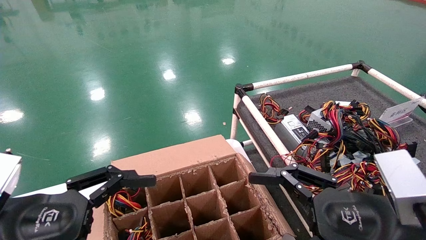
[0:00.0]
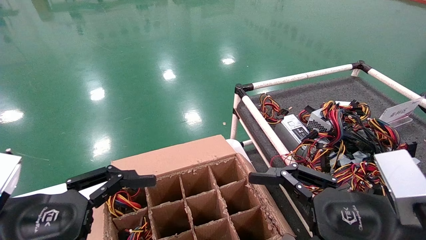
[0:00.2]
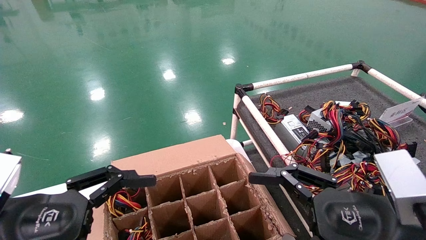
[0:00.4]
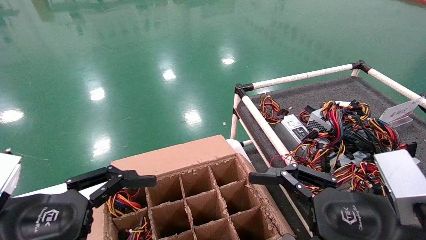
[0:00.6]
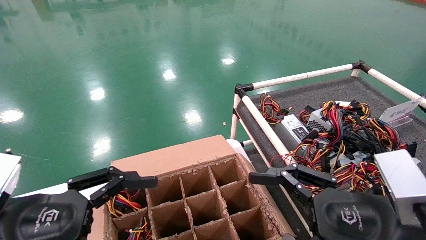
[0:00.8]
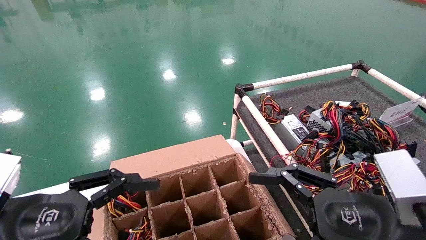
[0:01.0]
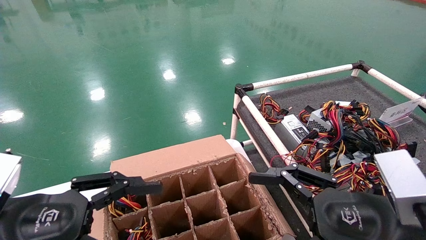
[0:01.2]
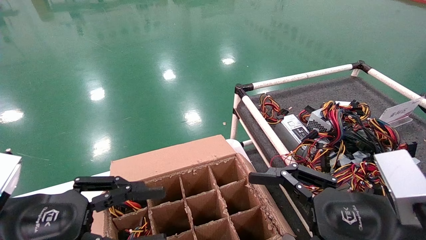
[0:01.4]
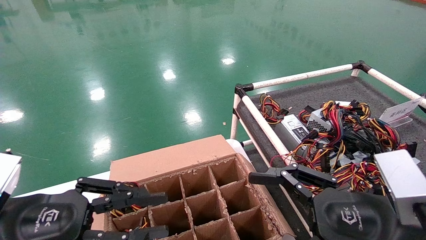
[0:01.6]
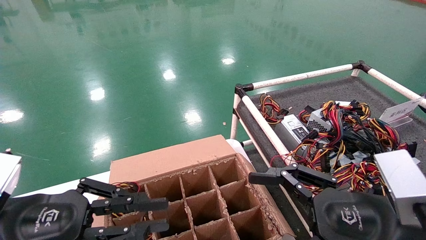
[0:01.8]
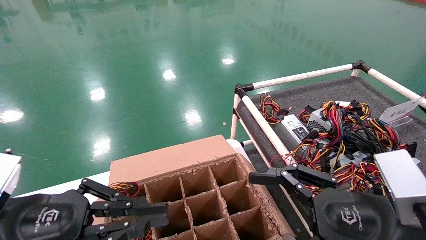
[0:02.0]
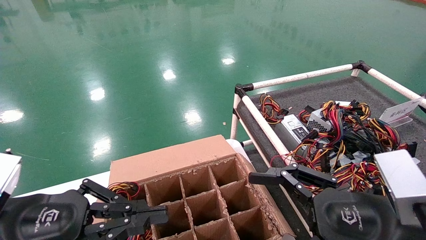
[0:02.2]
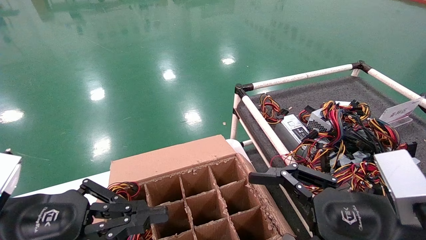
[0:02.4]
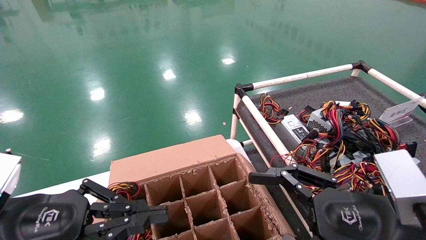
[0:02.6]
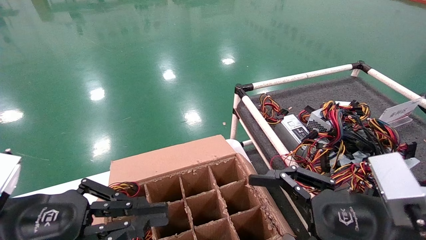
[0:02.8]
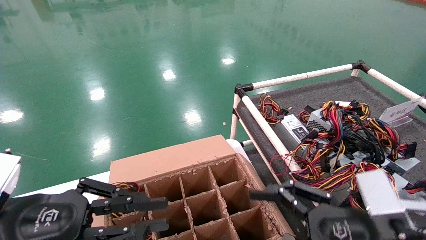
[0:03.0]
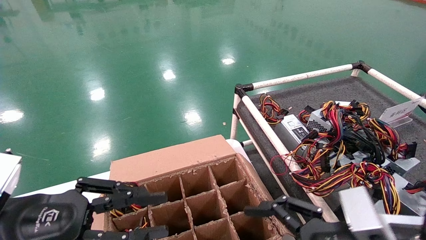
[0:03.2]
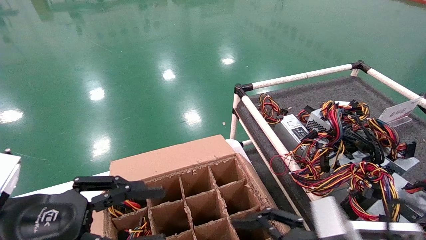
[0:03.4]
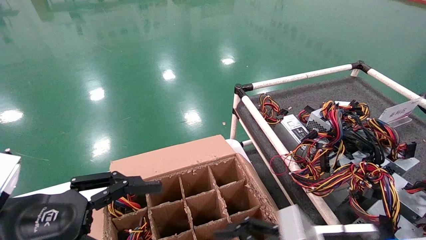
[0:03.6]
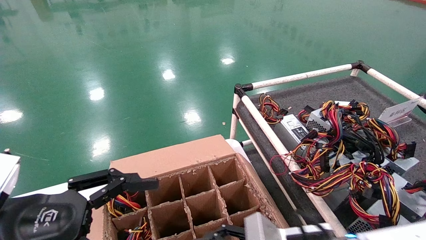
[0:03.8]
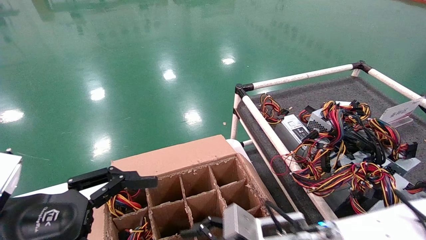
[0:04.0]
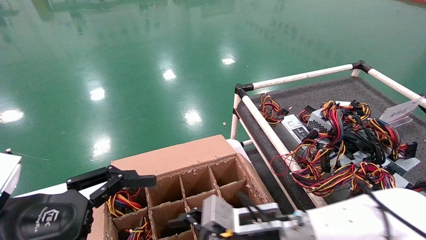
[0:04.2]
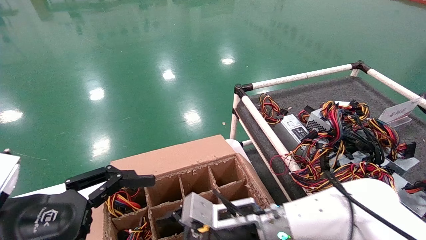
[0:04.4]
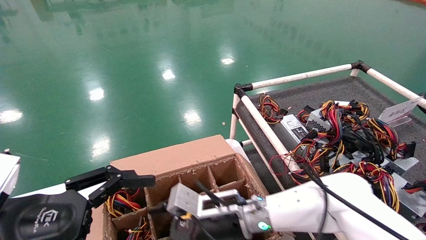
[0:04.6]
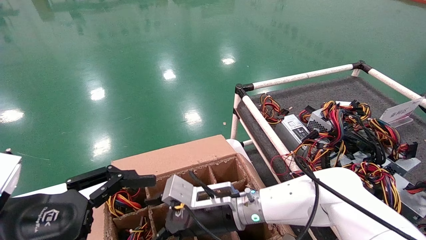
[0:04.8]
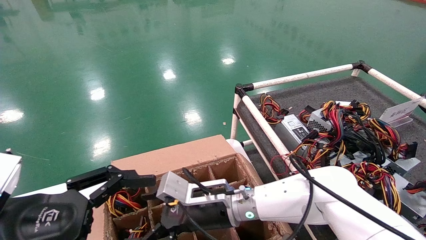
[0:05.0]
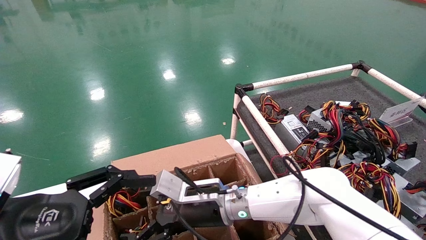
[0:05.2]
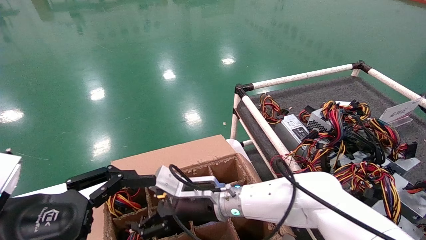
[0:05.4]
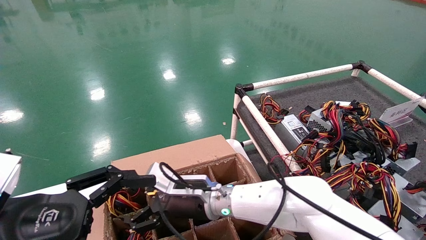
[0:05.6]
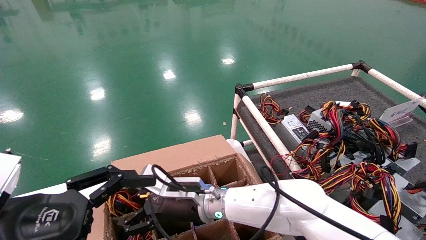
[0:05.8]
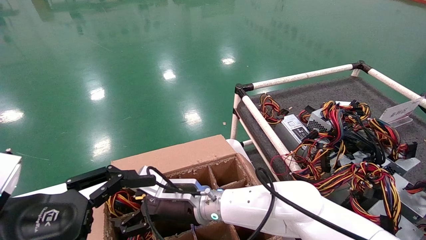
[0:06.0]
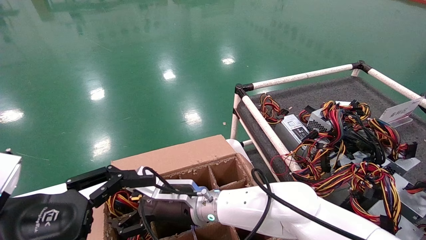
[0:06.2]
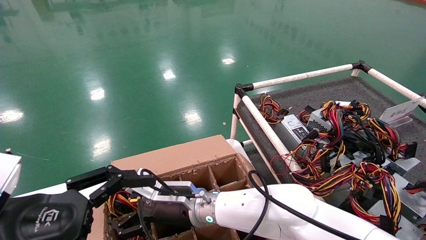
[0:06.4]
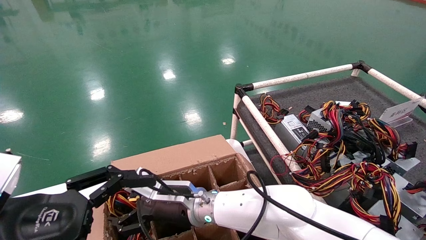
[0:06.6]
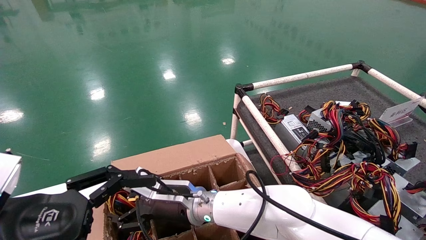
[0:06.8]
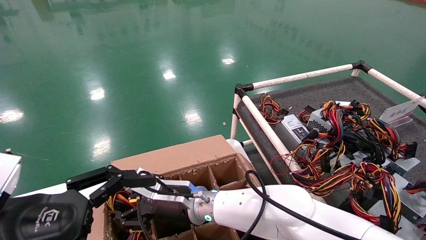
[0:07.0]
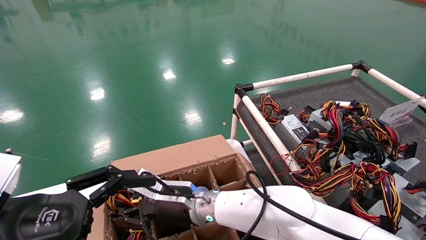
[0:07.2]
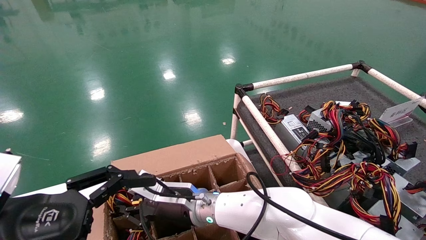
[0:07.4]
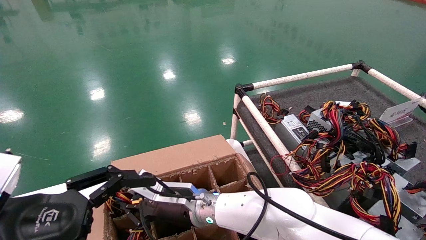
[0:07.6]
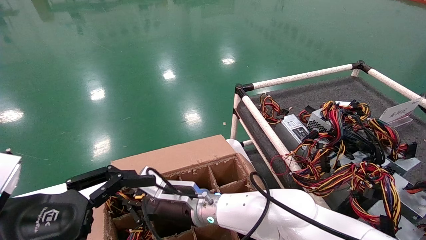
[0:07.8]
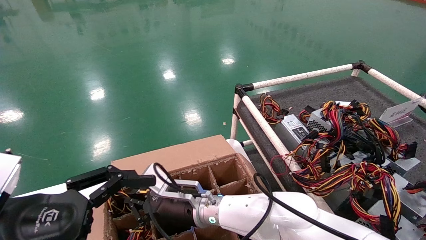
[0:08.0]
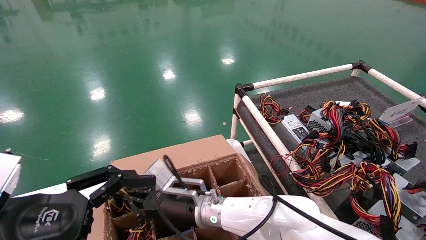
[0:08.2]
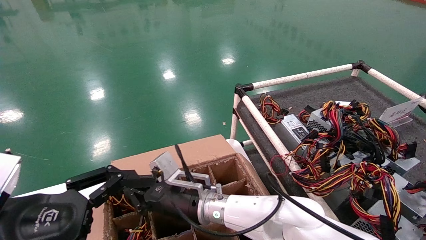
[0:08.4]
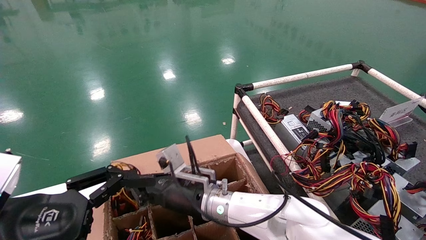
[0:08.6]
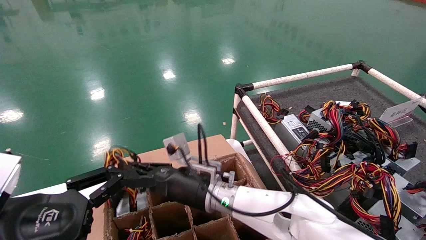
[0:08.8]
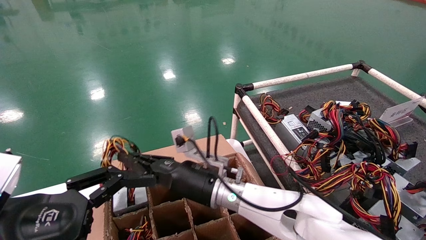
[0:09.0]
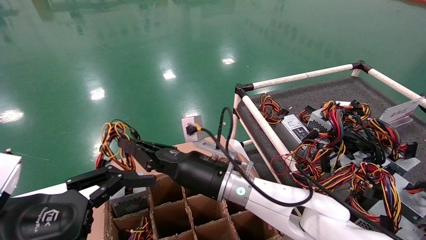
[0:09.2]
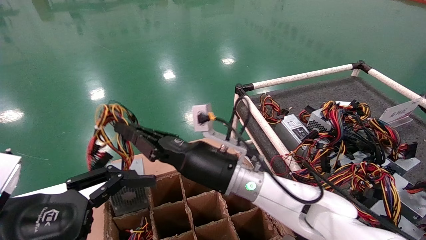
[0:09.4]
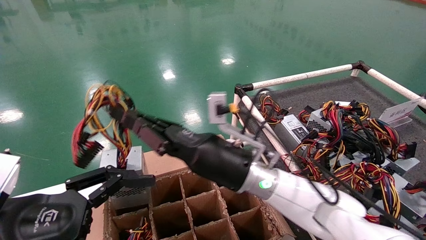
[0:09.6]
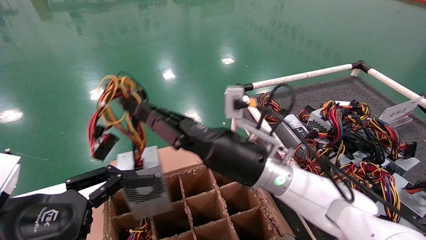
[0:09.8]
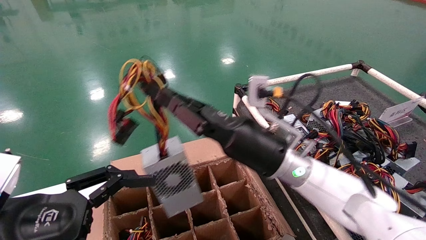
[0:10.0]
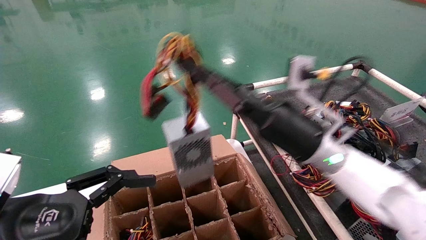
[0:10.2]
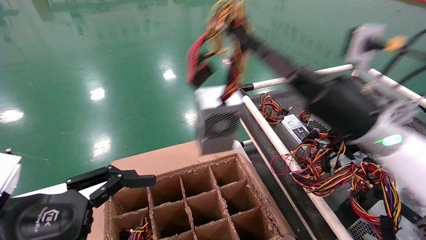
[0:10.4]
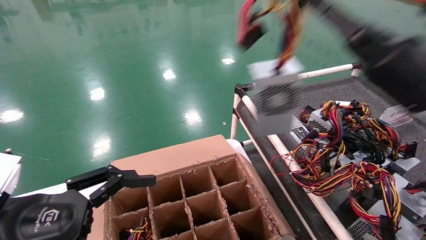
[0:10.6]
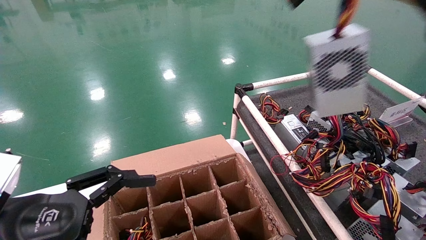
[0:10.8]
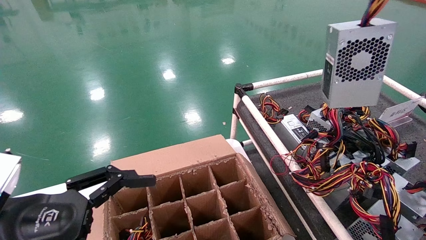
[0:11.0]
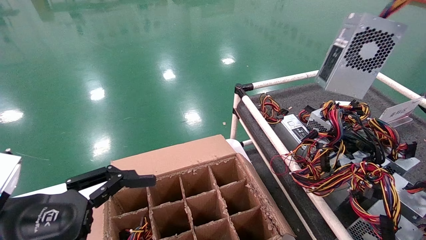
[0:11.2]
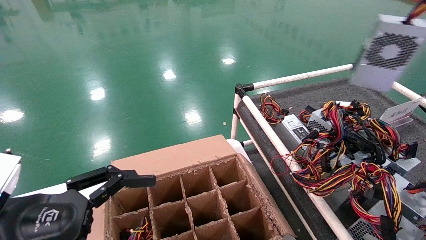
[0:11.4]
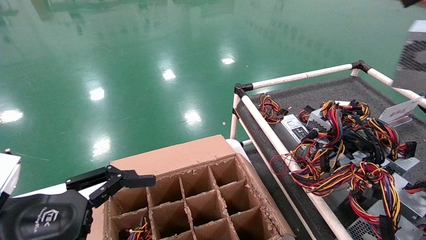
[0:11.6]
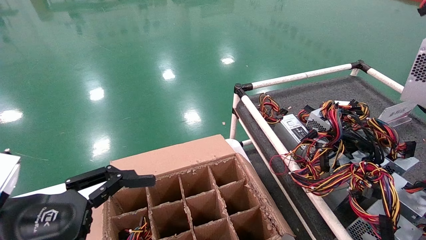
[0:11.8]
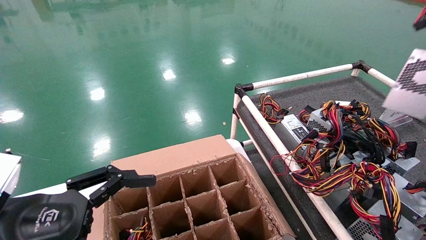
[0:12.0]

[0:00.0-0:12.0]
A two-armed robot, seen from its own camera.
Step, 0:03.0 to 0:07.8: Grab and lift the power supply from the large box.
0:00.0 to 0:01.6: The left gripper closes up.
0:01.6 to 0:03.0: There are only small adjustments of the grippers.
0:03.0 to 0:04.4: The left gripper opens its fingers, while the right gripper shifts roughly 25 cm to the left, forward and downward.
0:04.4 to 0:06.0: The right gripper travels to the left by roughly 10 cm.
0:06.0 to 0:07.6: The right gripper closes its fingers.
0:07.6 to 0:09.0: The right gripper moves approximately 5 cm.
0:09.0 to 0:10.4: The right gripper heads to the right and upward, covering about 25 cm.
0:10.4 to 0:12.0: The right gripper heads to the right, covering approximately 30 cm.

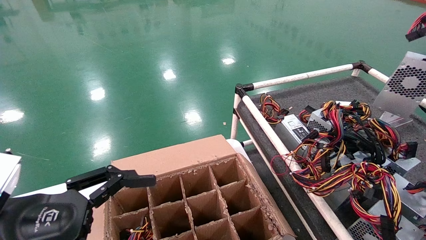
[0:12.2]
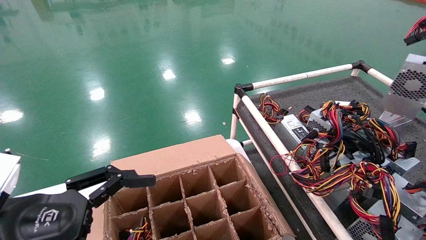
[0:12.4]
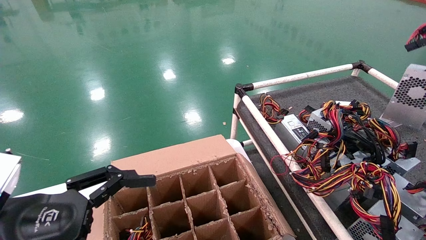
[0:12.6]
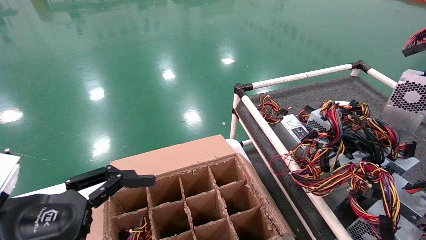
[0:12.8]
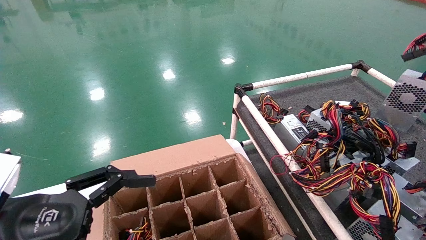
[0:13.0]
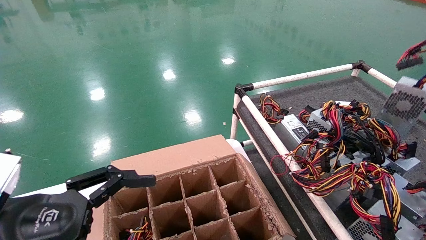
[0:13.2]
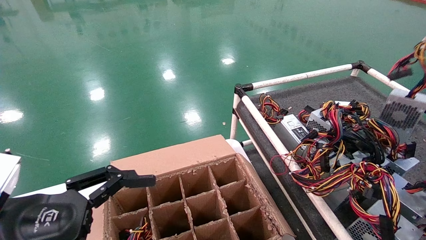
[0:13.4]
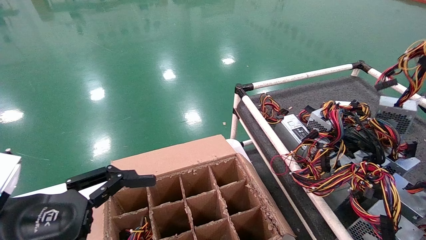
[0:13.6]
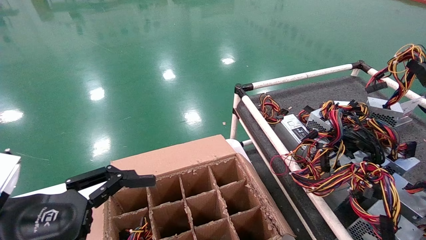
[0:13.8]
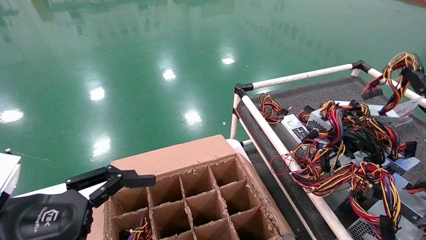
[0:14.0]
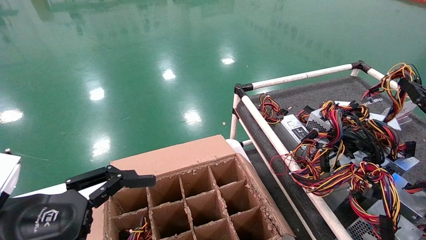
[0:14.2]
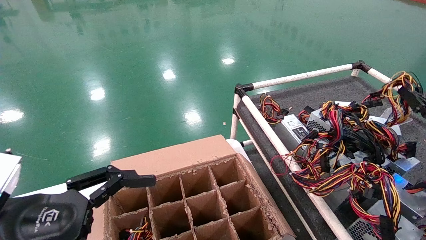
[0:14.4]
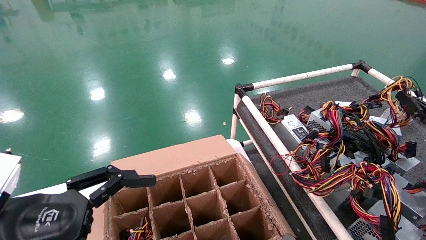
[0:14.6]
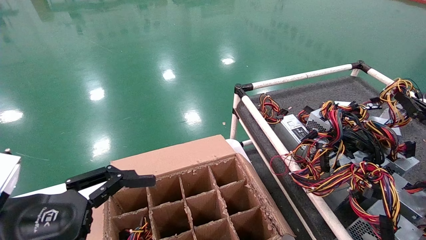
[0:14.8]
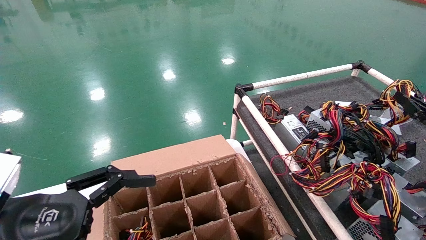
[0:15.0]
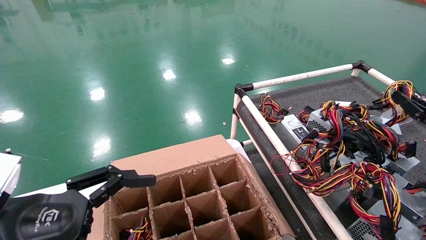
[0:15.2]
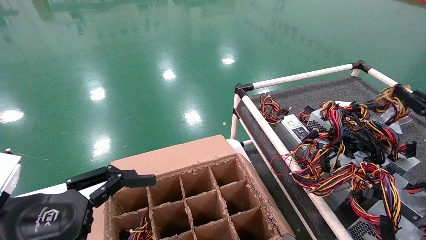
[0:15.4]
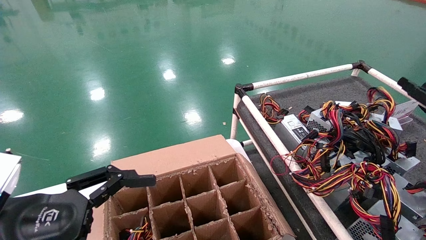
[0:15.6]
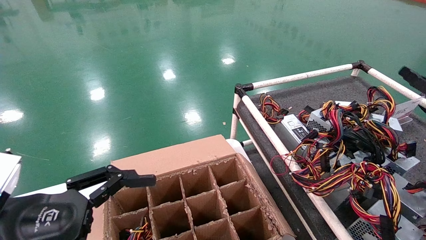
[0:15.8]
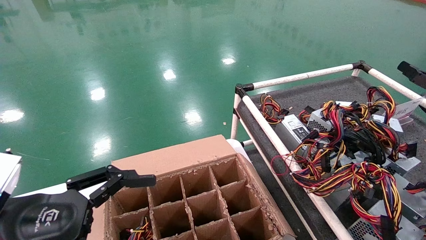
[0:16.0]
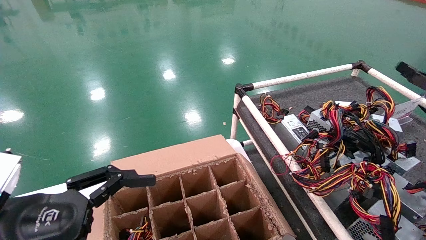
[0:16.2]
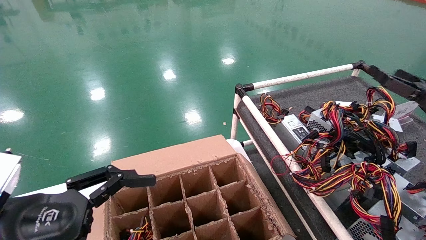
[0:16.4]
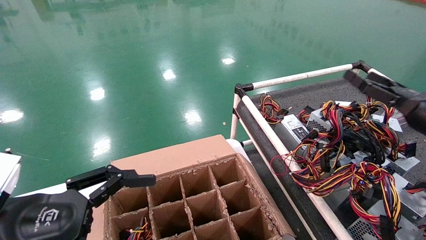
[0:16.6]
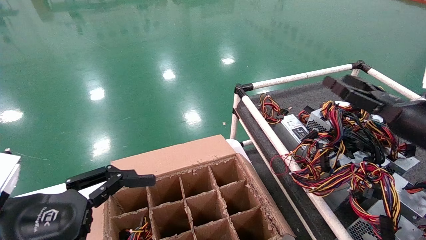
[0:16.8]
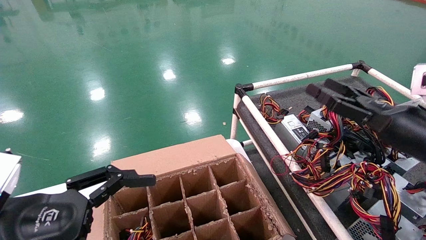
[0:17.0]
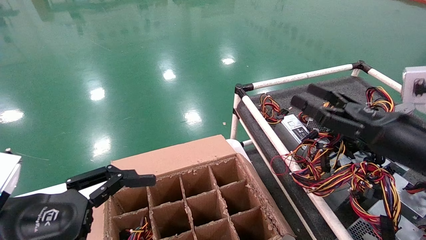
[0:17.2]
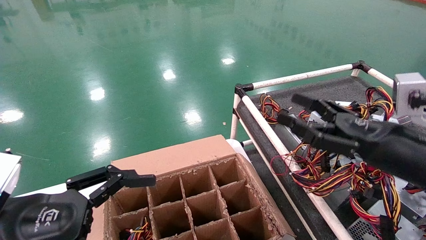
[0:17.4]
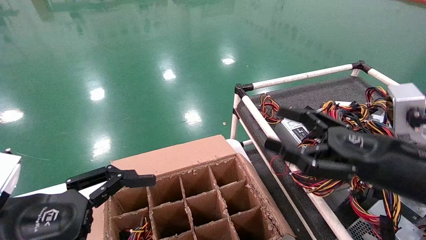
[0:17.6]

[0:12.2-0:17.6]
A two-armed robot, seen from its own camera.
Step, 0:12.2 to 0:16.0: Place the power supply on the operating table.
0:12.2 to 0:13.6: The right gripper goes some 10 cm downward and forward.
0:13.6 to 0:15.0: The right gripper travels downward by some 5 cm.
0:15.0 to 0:16.2: The right gripper shifts roughly 5 cm upward, and opens its fingers.
0:16.2 to 0:17.6: The right gripper goes roughly 20 cm to the left and backward.
